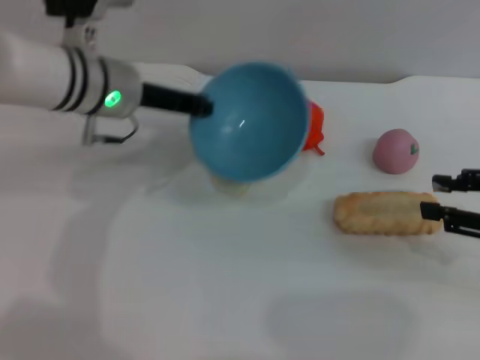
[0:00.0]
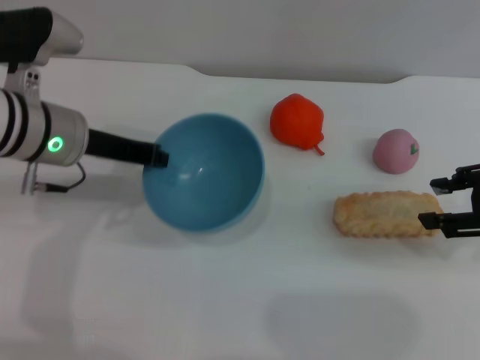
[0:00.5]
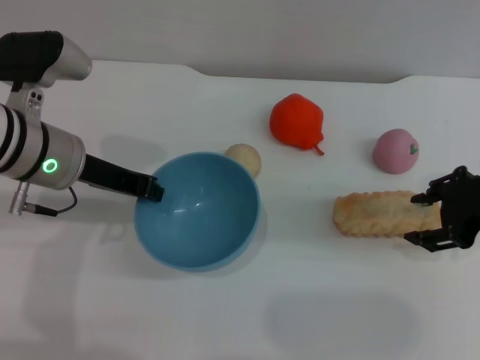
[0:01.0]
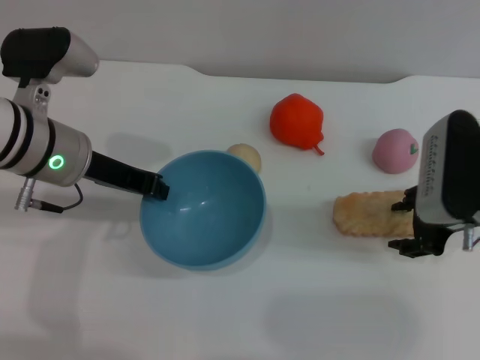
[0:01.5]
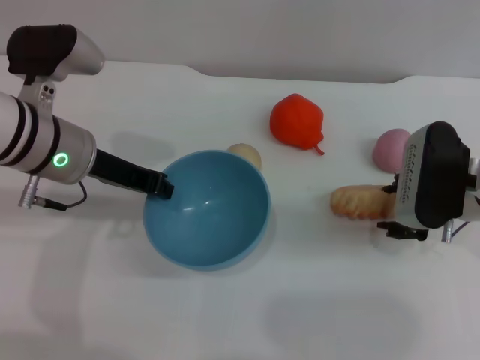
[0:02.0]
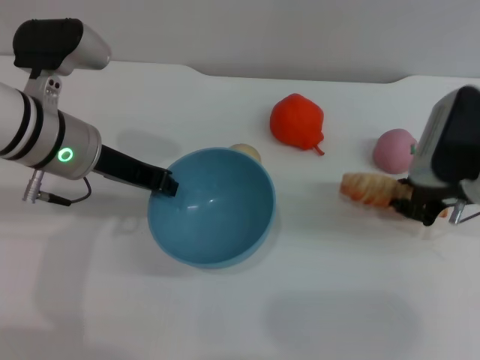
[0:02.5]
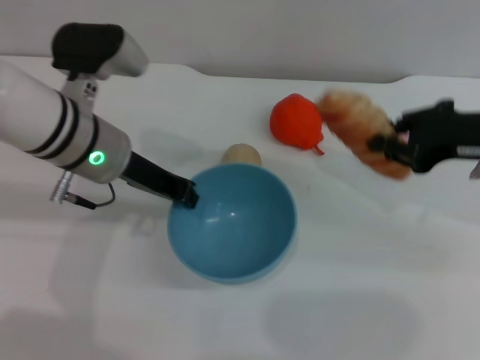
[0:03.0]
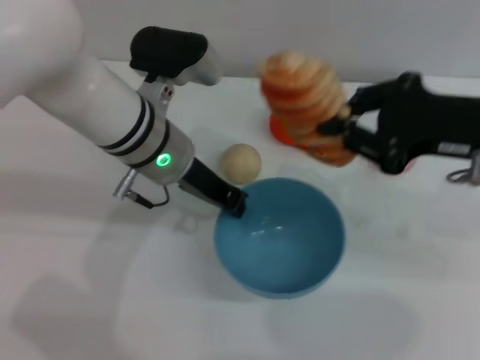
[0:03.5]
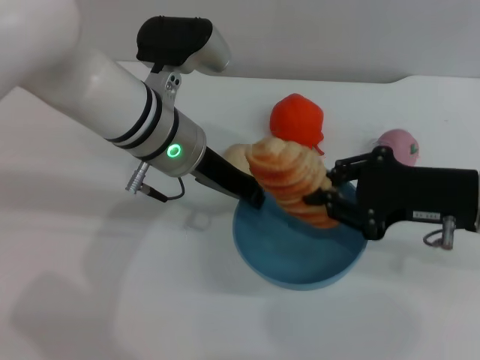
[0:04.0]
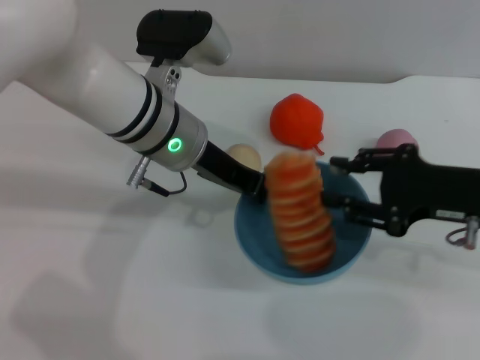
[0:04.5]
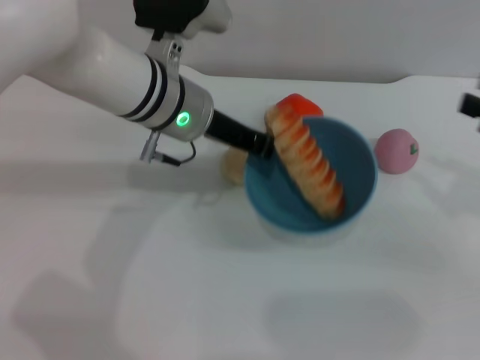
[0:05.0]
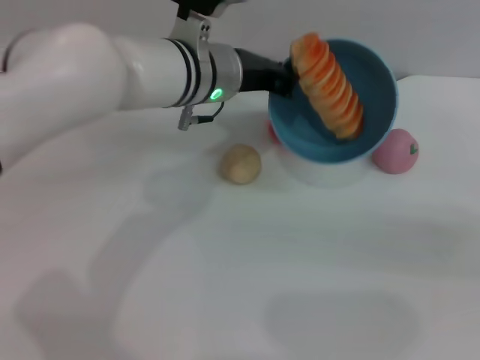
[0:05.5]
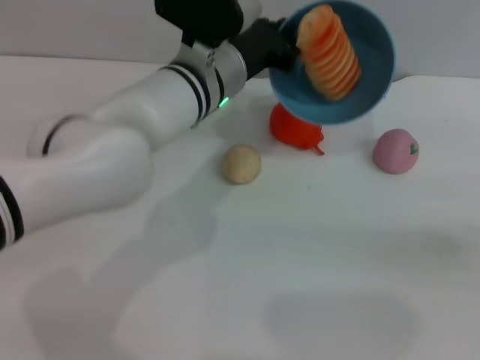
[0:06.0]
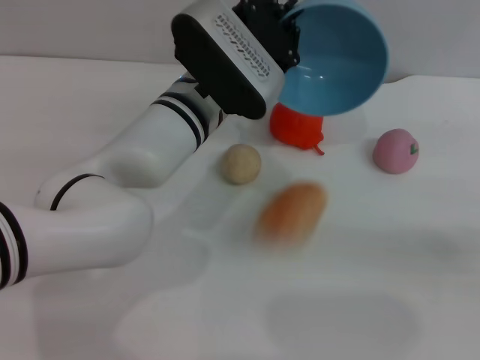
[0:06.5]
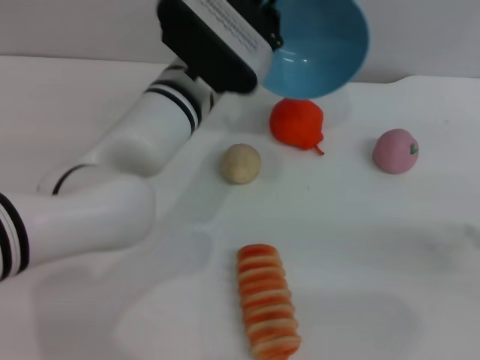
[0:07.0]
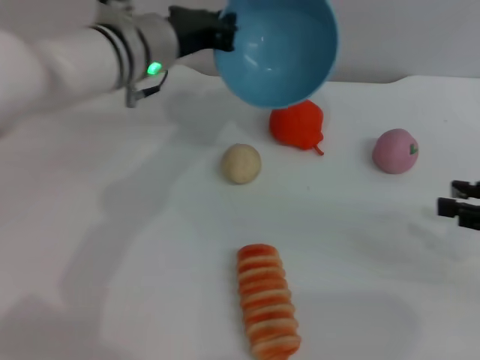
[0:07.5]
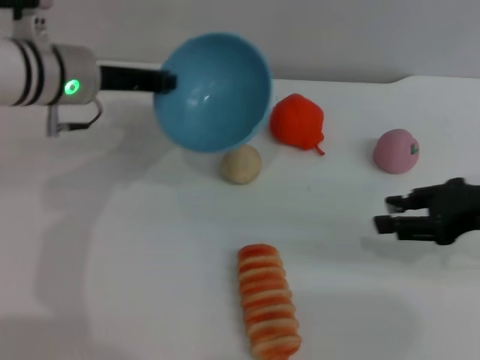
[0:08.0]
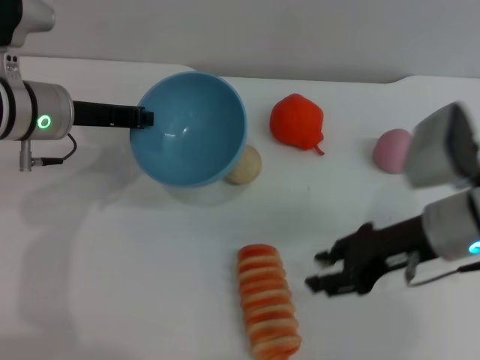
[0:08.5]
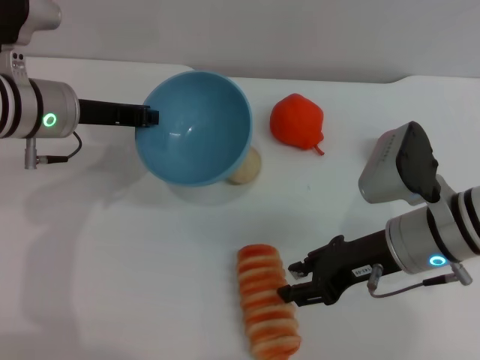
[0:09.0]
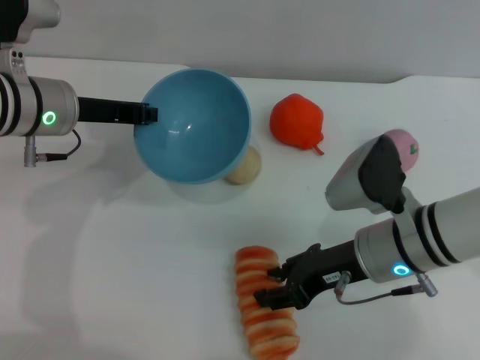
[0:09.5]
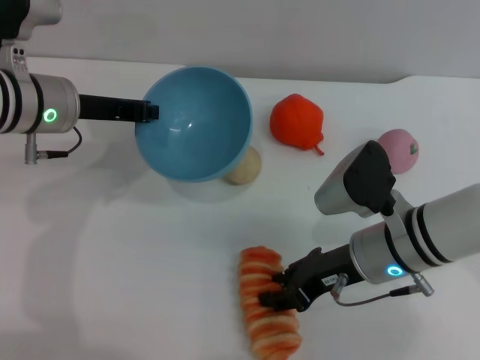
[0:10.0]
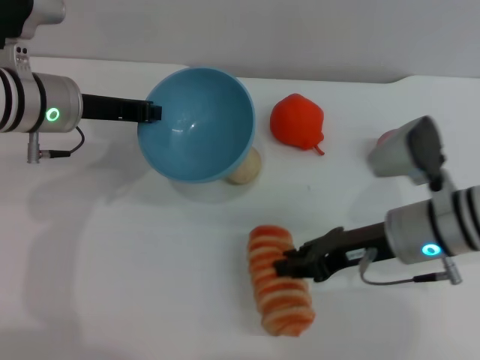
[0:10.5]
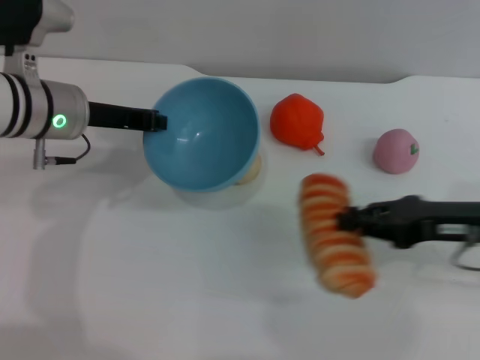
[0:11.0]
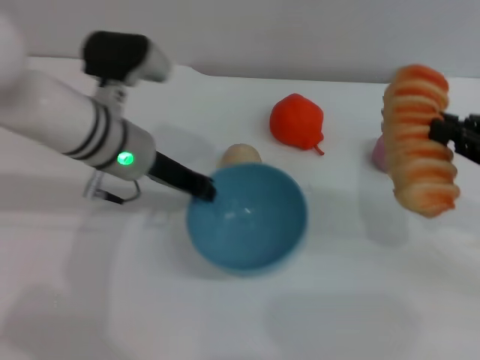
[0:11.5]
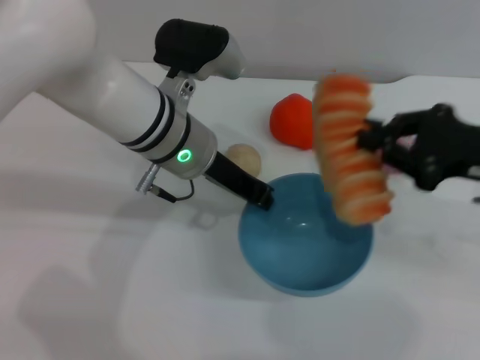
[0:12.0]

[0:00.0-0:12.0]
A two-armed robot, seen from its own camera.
Task of the whole recording: put the bread into the blue bowl and pour it out repeatedly.
Step, 0:00.0 to 0:02.5: Pick up the bread with the right gripper.
Step, 0:03.0 to 0:04.5: Place the bread into the bowl.
Step, 0:05.0 to 0:06.5: Pour the bread out of the bowl.
Step, 0:07.0 to 0:11.0: Pick up the bread with the right gripper.
0:00.0 to 0:02.0: The left gripper goes approximately 5 cm backward, while the right gripper travels to the left and forward by about 15 cm.
0:02.0 to 0:04.0: The left gripper shifts about 10 cm to the right. The right gripper closes up.
0:04.0 to 0:06.0: The right gripper is displaced to the right by approximately 20 cm, and opens. Meanwhile the left gripper changes place by about 5 cm.
0:06.0 to 0:08.0: The left gripper goes roughly 15 cm to the left. Meanwhile the right gripper is displaced to the left and forward by some 15 cm.
0:08.0 to 0:10.0: The right gripper heads to the left and downward, covering approximately 15 cm.
0:10.0 to 0:12.0: The right gripper moves to the right and upward, approximately 15 cm, and closes up. Meanwhile the left gripper travels to the right by about 15 cm.

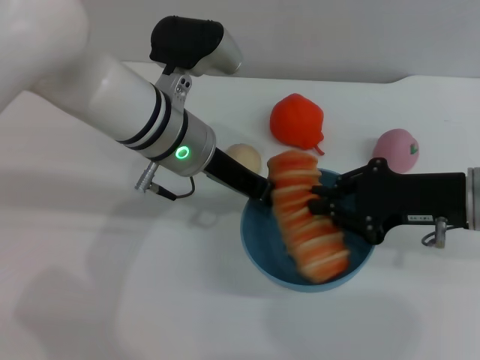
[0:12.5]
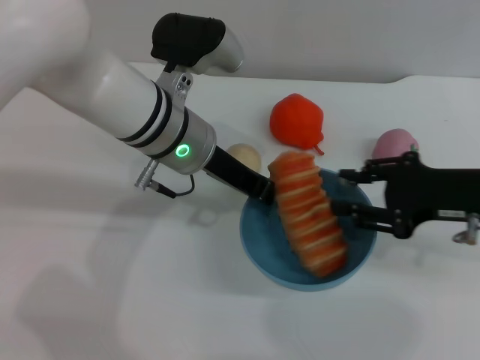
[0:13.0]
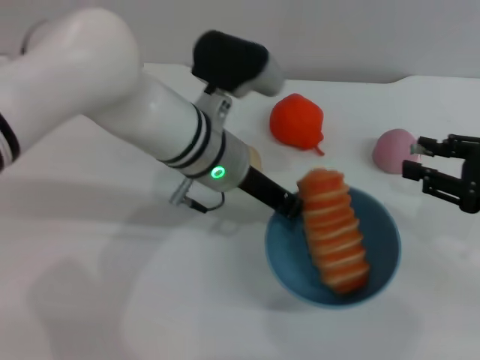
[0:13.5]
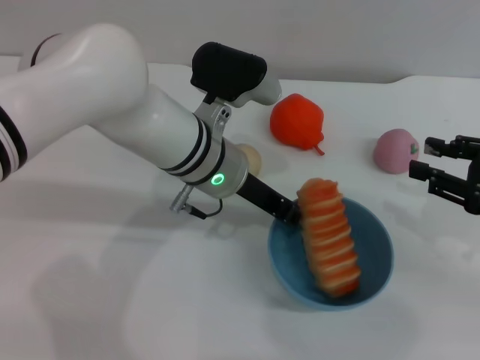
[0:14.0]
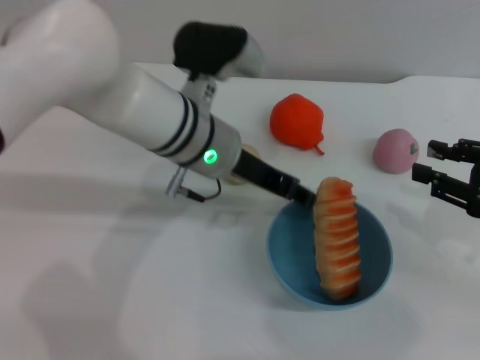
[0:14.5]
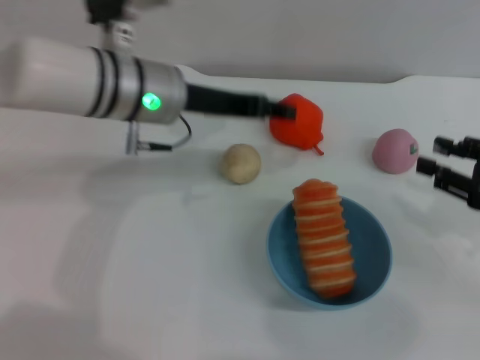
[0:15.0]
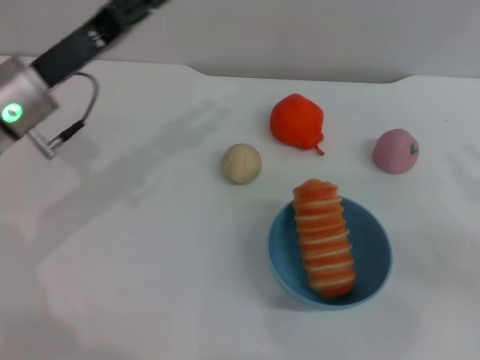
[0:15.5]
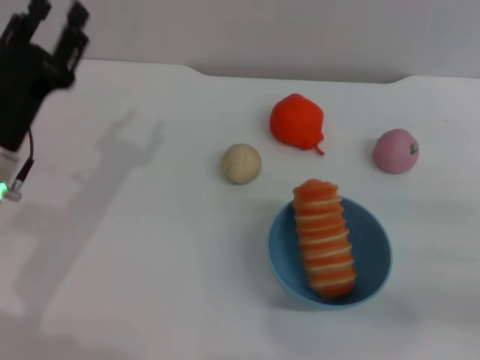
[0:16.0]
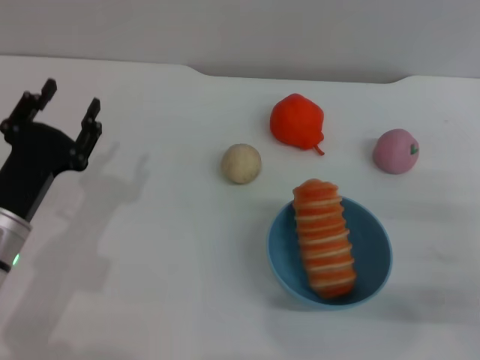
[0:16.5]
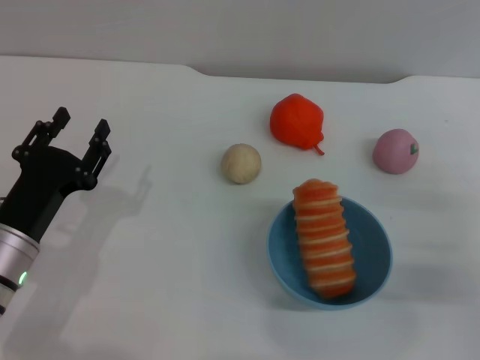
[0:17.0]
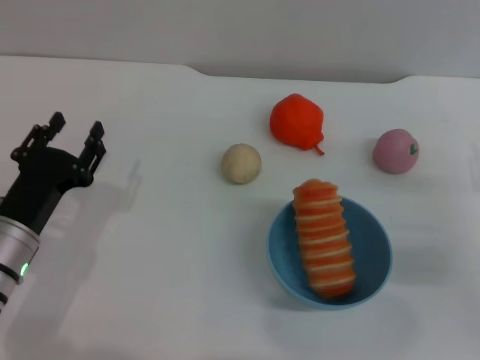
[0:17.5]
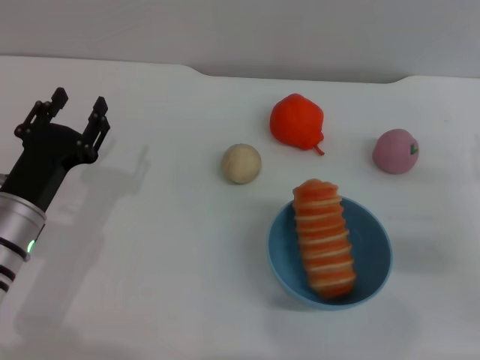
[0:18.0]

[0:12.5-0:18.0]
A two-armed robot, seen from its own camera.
Task of the whole recording: put the bread into the blue bowl and pour it out repeatedly.
Step, 0:13.5 to 0:15.0: Place the bowl on the table.
0:12.5 to 0:14.5: The right gripper is displaced to the right by some 10 cm, and opens. Meanwhile the left gripper opens.
0:14.5 to 0:16.0: The right gripper moves downward and backward, about 10 cm. Meanwhile the left gripper goes some 20 cm to the left and backward.
0:16.0 to 0:18.0: The left gripper goes roughly 5 cm downward.
